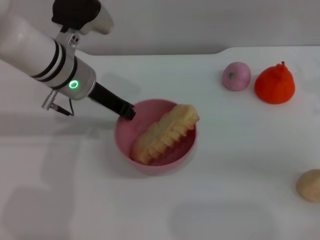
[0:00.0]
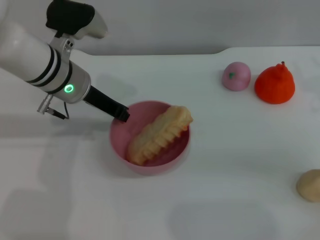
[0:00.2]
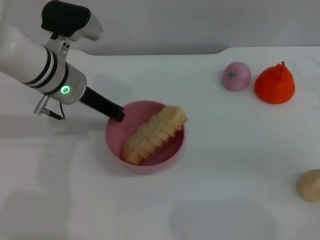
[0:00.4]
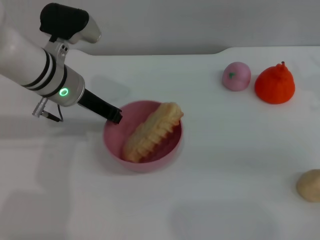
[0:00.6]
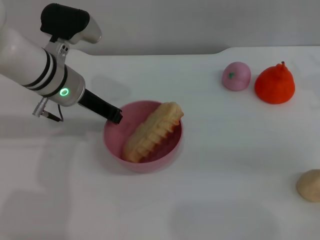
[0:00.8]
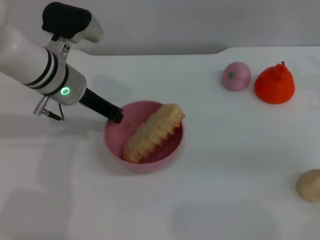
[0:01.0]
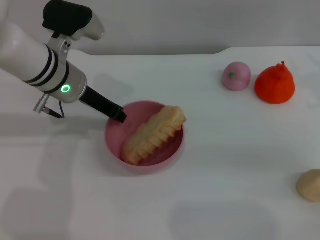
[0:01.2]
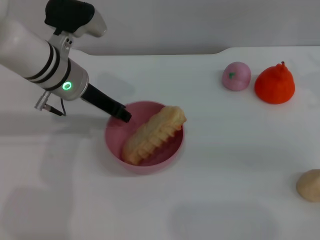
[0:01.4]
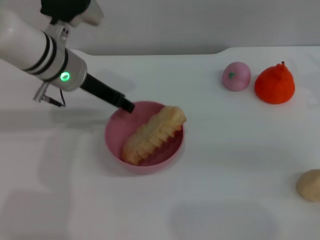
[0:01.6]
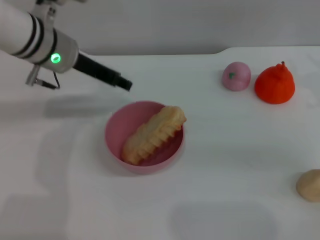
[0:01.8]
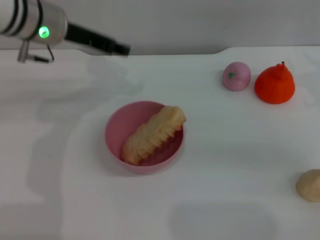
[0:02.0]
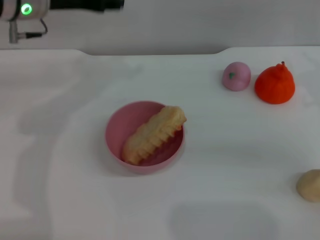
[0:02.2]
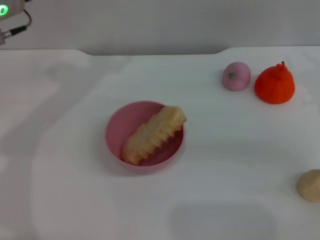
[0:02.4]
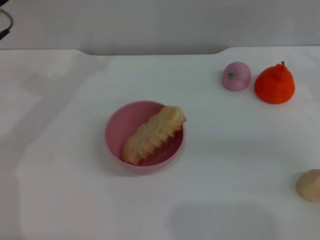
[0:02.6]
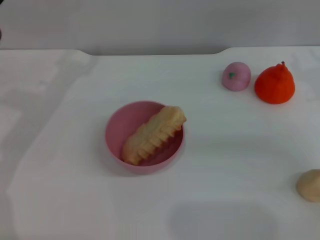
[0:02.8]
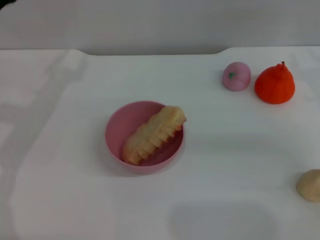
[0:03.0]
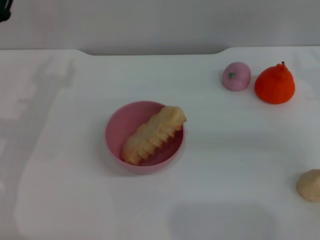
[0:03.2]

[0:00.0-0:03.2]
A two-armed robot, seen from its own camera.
Task of the whole recording: put the bread into the pink bowl and pour it out repeatedly.
0:00.0 to 0:01.6: The left gripper opens up.
0:01.6 to 0:03.2: The left gripper travels to the left and backward by about 15 cm.

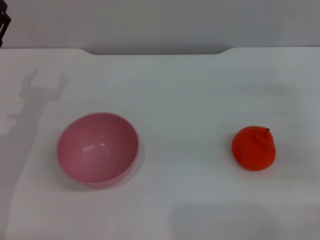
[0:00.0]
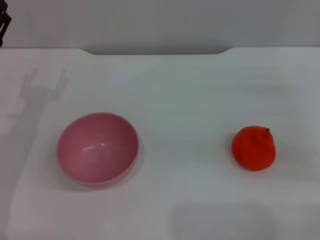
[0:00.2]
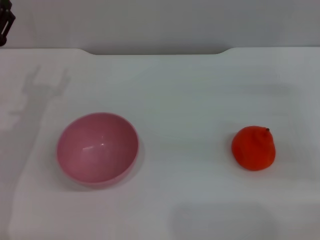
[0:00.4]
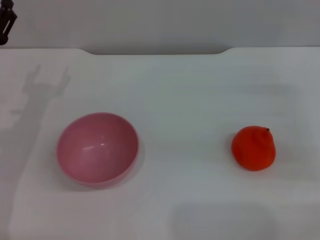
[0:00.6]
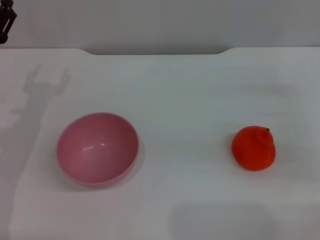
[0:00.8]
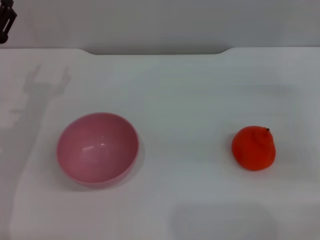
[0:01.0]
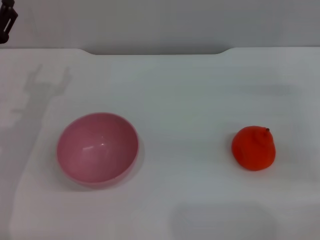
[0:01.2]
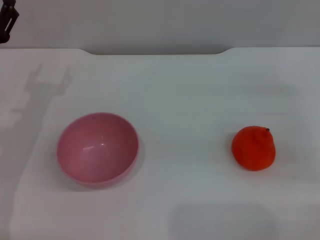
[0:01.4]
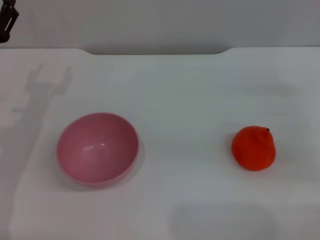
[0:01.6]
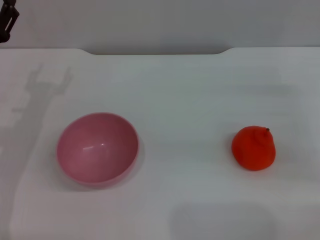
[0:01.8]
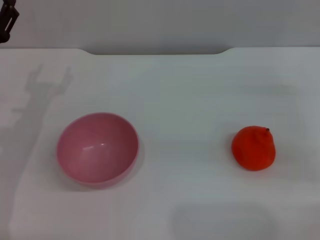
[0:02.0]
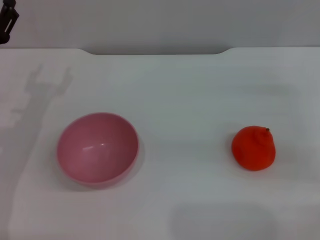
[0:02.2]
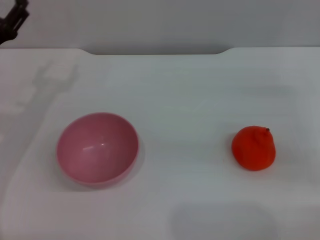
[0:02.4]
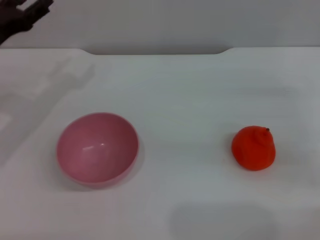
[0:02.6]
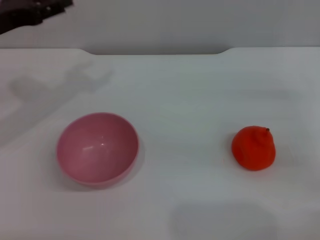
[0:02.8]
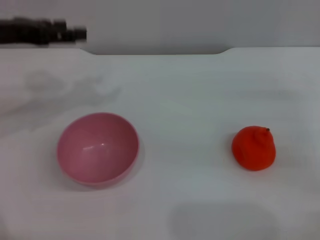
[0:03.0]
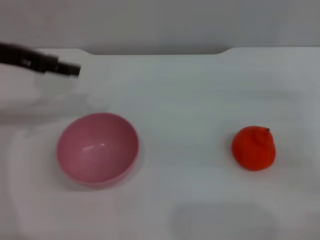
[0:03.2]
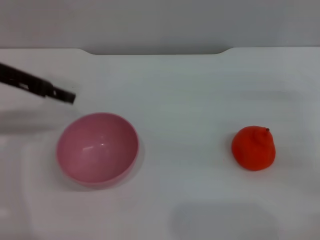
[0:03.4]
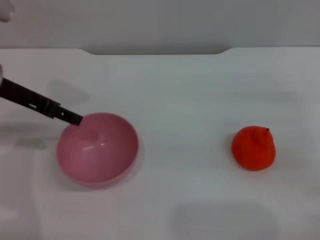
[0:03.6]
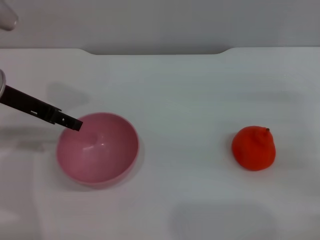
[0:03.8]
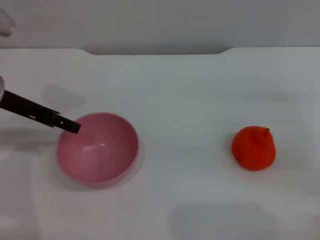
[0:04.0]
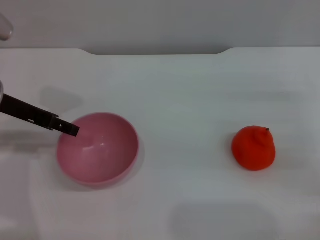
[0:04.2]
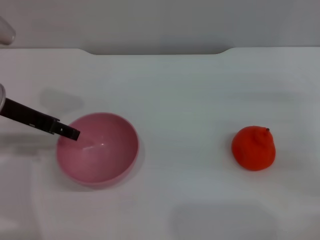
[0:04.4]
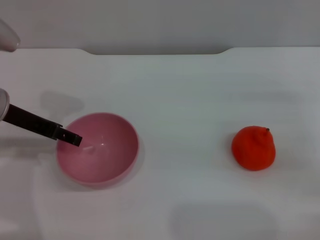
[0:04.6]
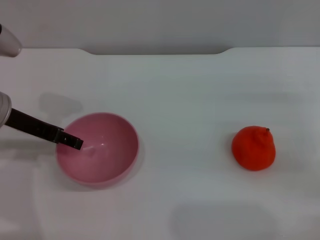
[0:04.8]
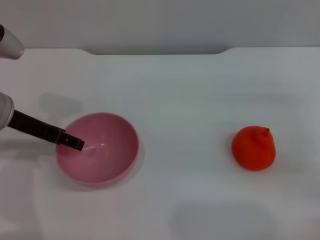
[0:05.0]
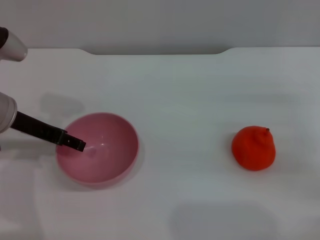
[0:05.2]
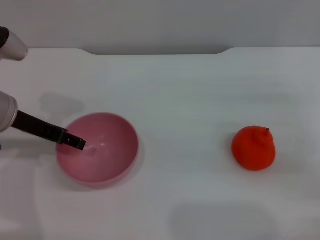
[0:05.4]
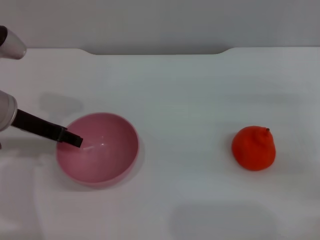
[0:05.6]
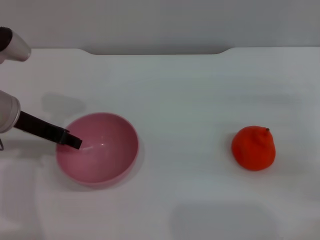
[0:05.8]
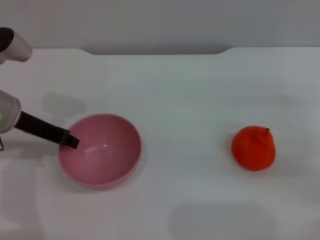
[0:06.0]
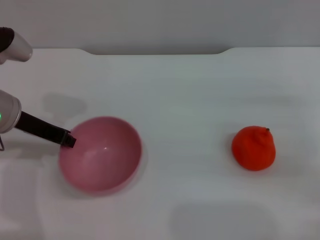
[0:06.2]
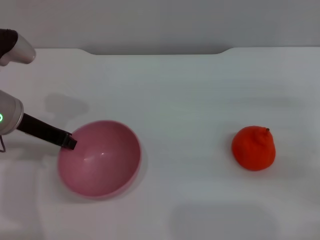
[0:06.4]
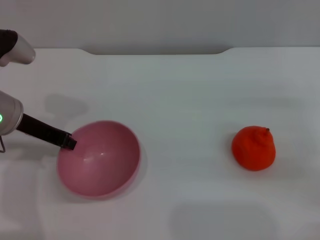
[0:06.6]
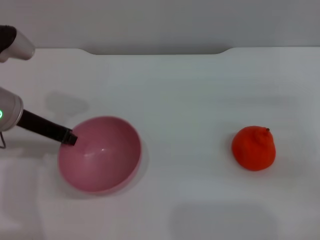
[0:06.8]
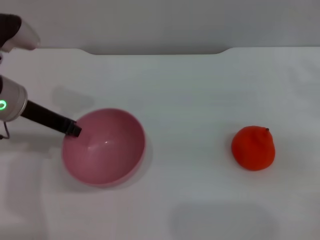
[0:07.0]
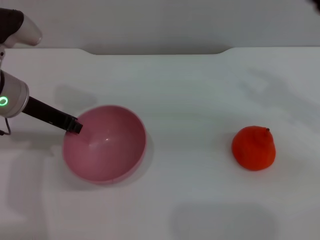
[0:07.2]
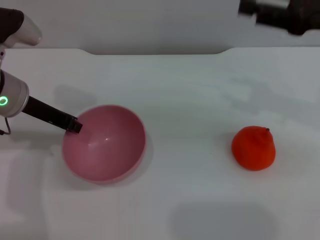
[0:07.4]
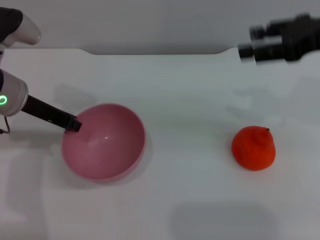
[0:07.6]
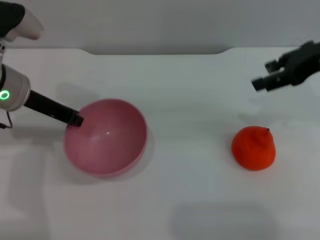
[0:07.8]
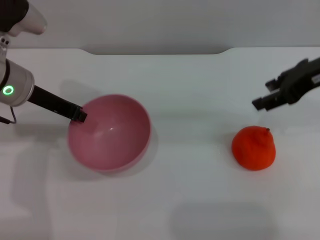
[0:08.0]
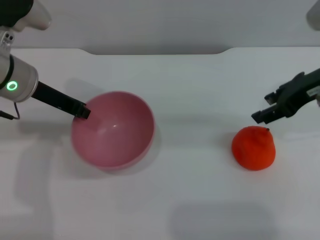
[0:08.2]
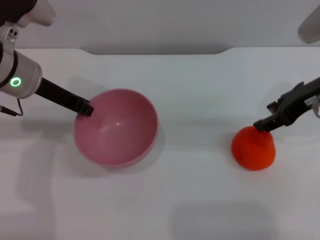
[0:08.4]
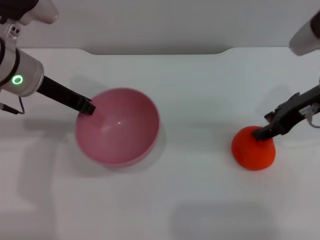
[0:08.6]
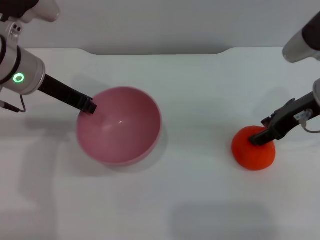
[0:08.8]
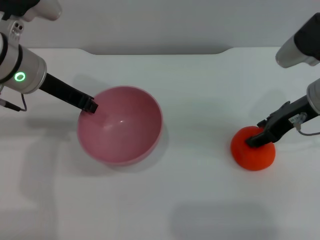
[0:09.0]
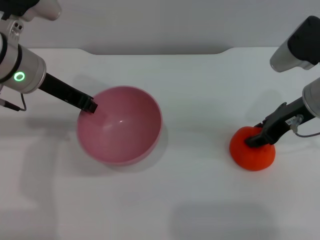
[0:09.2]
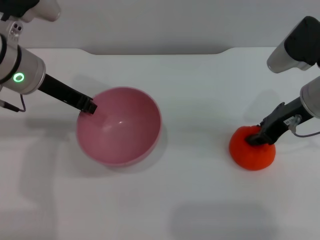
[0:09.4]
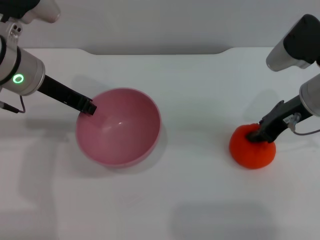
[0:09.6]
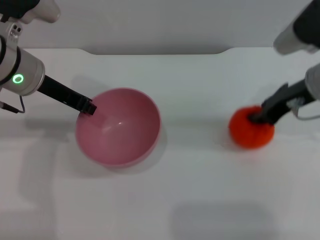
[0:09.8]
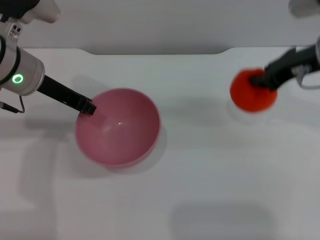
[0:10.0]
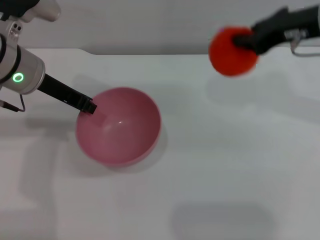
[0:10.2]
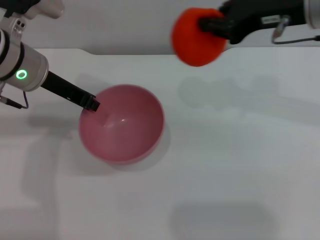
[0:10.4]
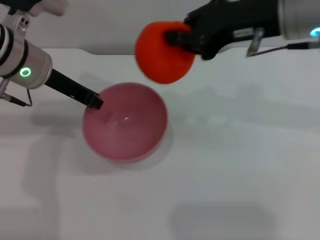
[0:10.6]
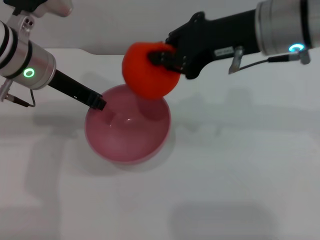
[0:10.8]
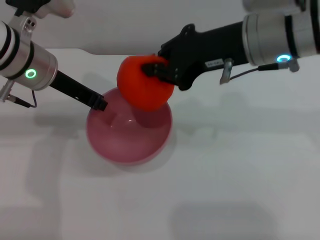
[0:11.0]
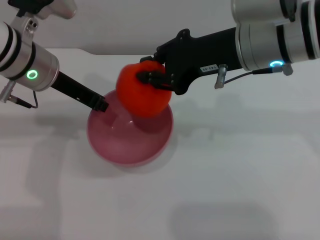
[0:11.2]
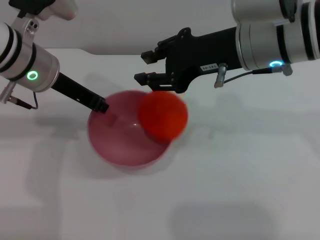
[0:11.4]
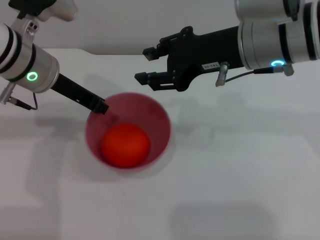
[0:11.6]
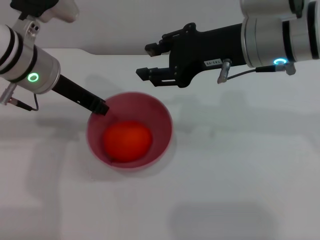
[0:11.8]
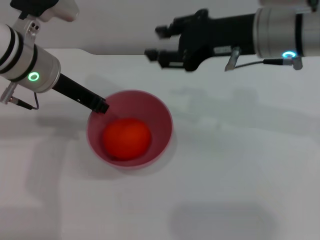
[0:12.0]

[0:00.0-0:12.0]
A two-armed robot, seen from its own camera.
Task of the whole recording: put the orange into the pink bowl and pour it out repeatedly.
Step, 0:00.0 to 0:07.8: Pick up the bowl with the left gripper.
Step, 0:08.0 to 0:10.0: Pick up the orange with the right gripper.
Step, 0:10.2 to 0:11.8: Place the orange into the bowl.
0:01.6 to 0:03.0: The left gripper goes some 10 cm upward.
0:03.0 to 0:04.4: The left gripper shifts by roughly 5 cm.
0:04.4 to 0:06.0: The left gripper closes up.
0:06.0 to 0:07.6: The left gripper closes its fingers, while the right gripper moves upward and to the left, roughly 15 cm.
0:07.6 to 0:09.0: The right gripper is displaced downward by roughly 10 cm.
0:09.0 to 0:10.4: The right gripper moves upward, some 10 cm, and closes up.
0:10.4 to 0:12.0: The right gripper moves approximately 5 cm, and opens its fingers.

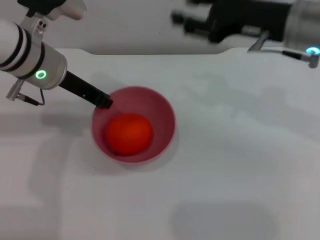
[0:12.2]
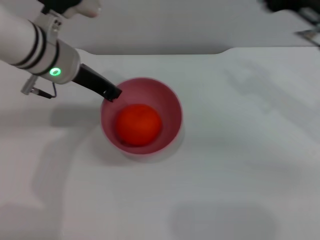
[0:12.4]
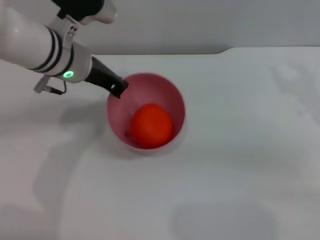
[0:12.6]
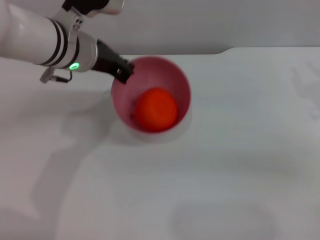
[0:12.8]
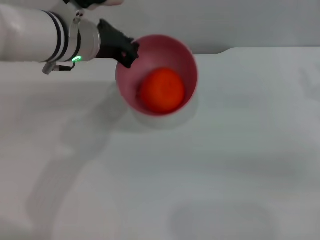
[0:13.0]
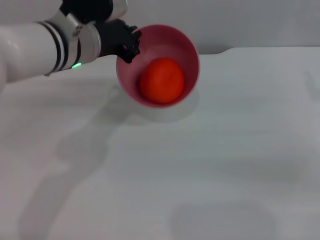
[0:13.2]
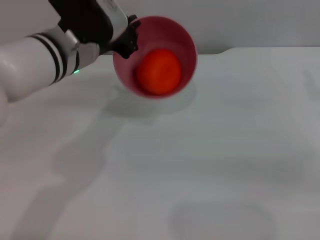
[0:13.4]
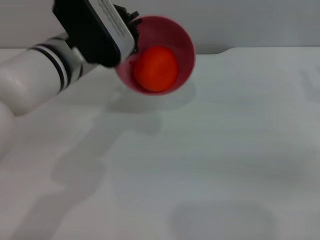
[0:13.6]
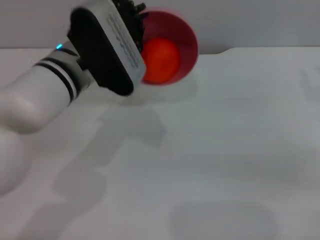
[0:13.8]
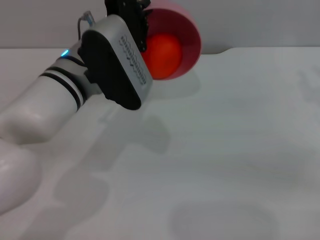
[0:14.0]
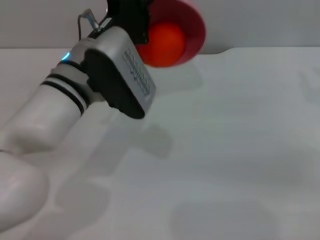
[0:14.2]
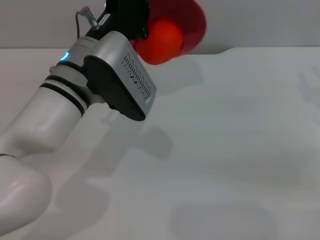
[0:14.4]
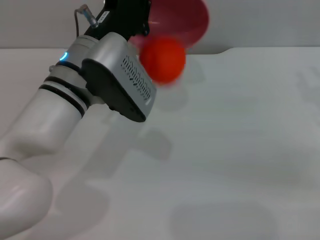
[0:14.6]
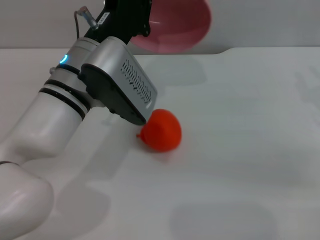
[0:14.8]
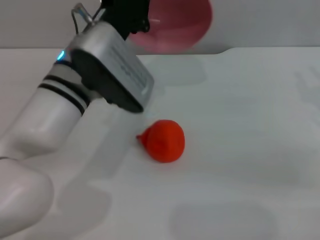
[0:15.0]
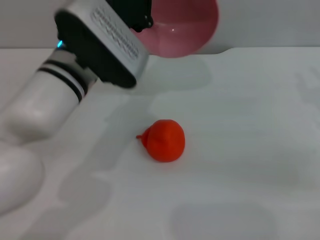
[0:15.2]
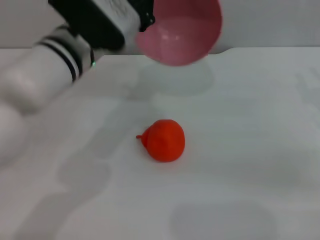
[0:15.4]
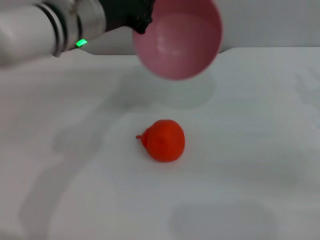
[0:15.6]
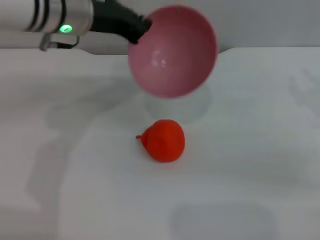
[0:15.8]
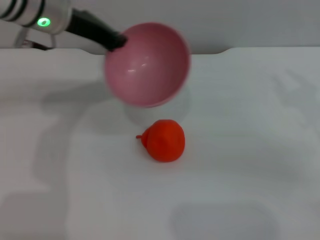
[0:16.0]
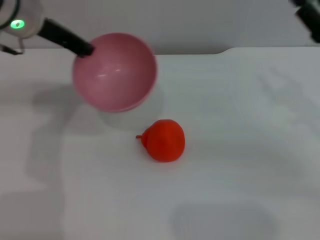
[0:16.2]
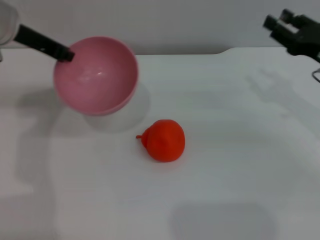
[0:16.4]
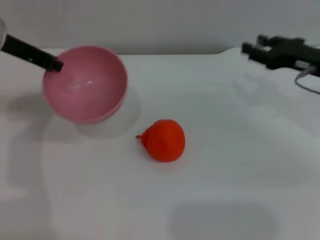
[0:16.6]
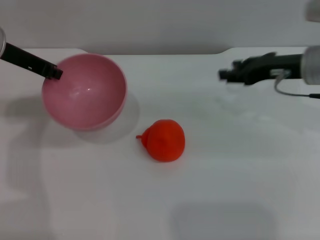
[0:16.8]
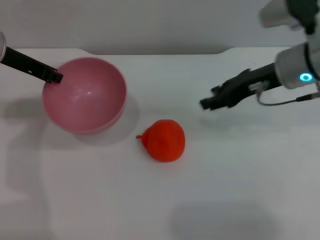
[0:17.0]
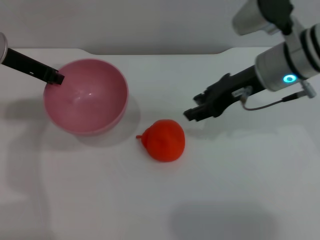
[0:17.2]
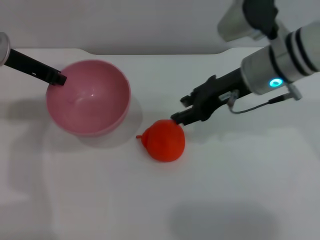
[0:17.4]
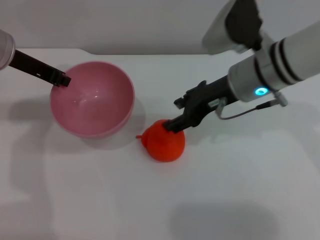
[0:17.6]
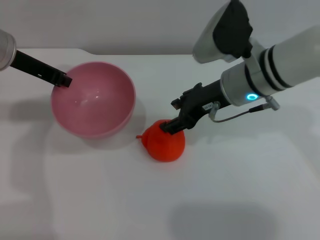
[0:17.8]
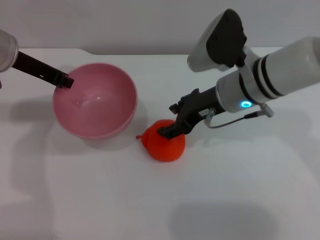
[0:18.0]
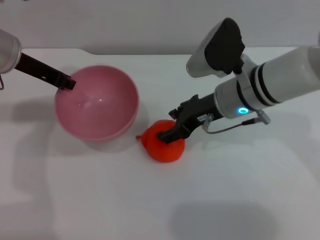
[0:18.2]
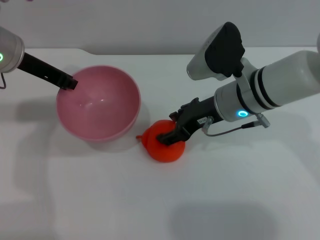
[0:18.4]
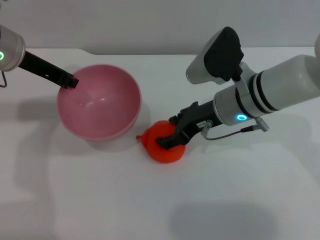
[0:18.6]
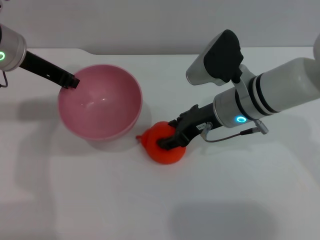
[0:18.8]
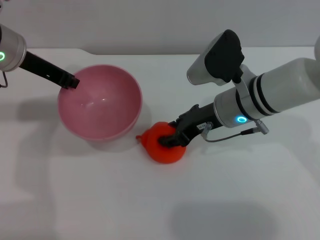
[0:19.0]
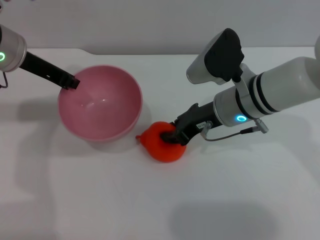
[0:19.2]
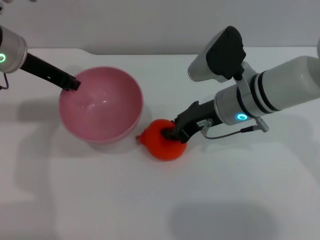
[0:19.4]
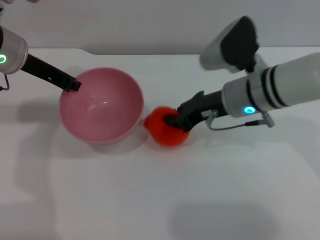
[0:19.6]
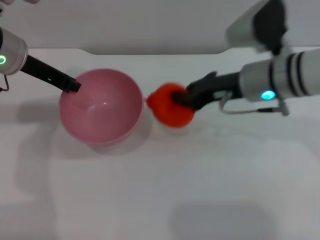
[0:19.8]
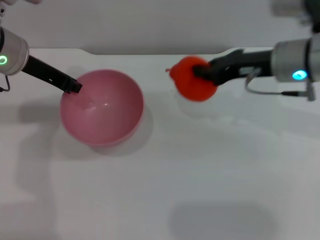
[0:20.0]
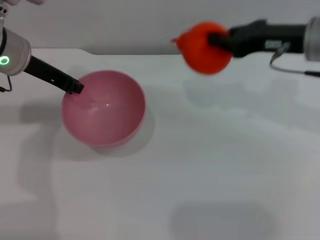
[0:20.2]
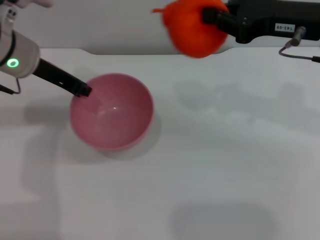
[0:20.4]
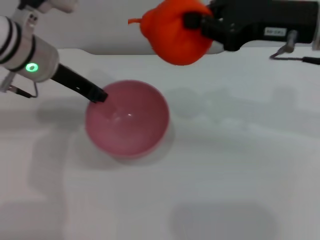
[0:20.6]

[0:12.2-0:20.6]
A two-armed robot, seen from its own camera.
Task of the whole recording: put the orange into the pink bowl and pour it out repeatedly.
Step, 0:12.2 to 0:15.2: Pour the orange out of the bowl.
Step, 0:15.4 to 0:19.8: Pick up the orange with the right gripper.
0:12.2 to 0:13.6: The right gripper goes approximately 20 cm to the right, downward and backward. Meanwhile the left gripper shifts roughly 5 cm to the right.
0:15.0 to 0:16.4: The left gripper goes approximately 20 cm to the left, forward and upward. The right gripper ends up roughly 5 cm from where it was.
0:16.4 to 0:17.8: The right gripper moves to the left, some 15 cm.
0:17.8 to 0:19.2: The right gripper closes up.
0:19.2 to 0:20.6: The right gripper travels upward and to the right by roughly 15 cm, and closes up.
